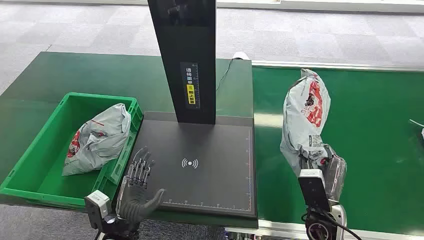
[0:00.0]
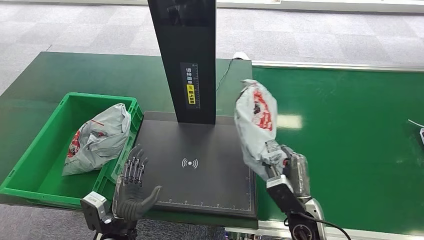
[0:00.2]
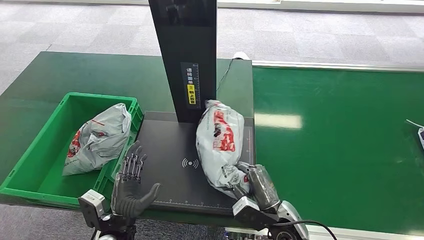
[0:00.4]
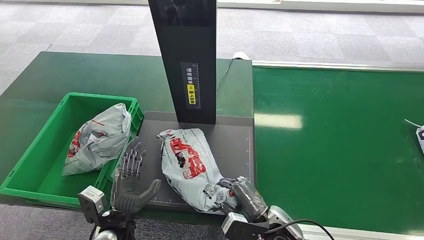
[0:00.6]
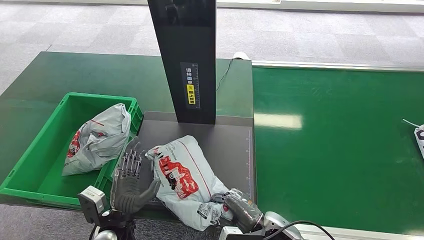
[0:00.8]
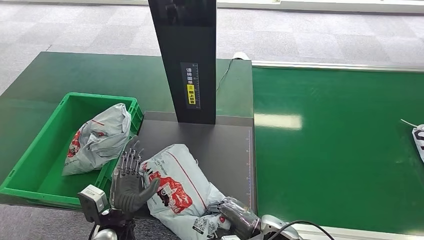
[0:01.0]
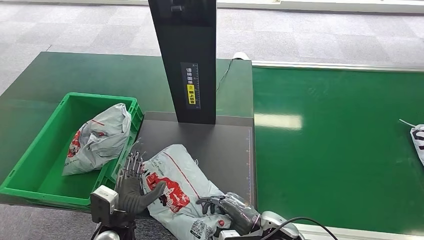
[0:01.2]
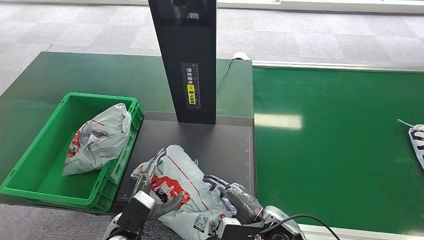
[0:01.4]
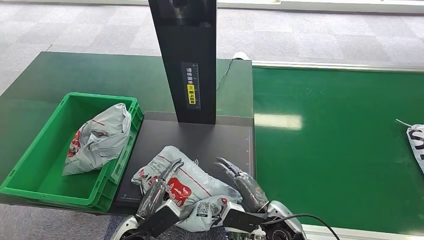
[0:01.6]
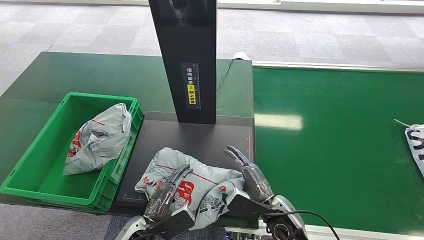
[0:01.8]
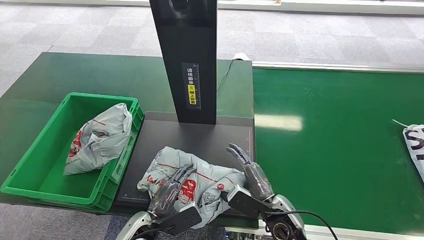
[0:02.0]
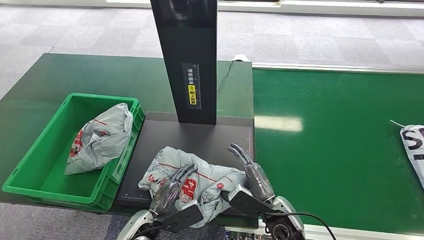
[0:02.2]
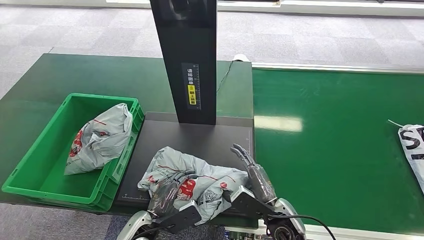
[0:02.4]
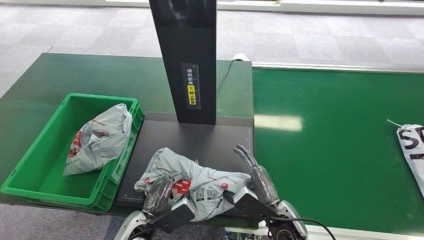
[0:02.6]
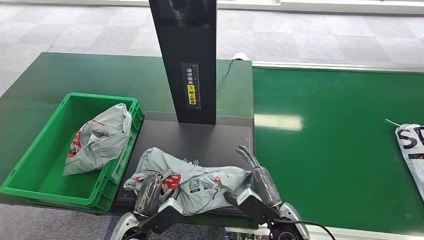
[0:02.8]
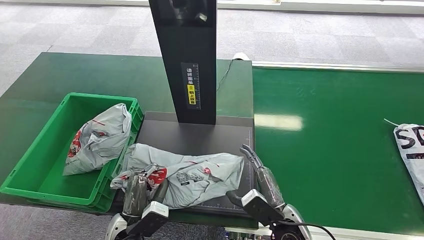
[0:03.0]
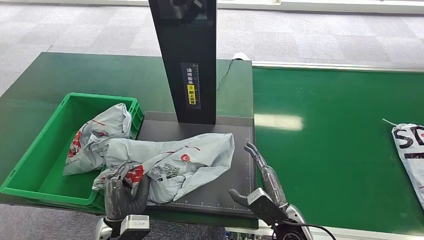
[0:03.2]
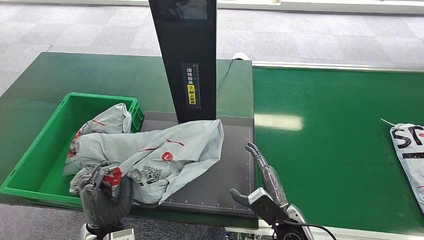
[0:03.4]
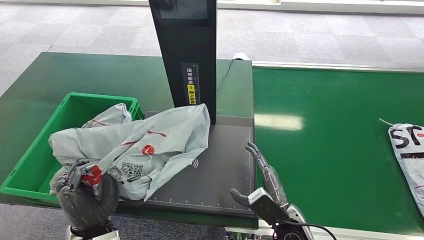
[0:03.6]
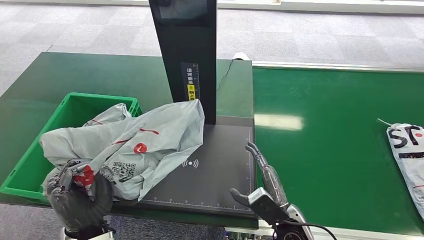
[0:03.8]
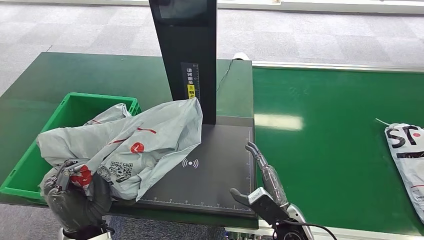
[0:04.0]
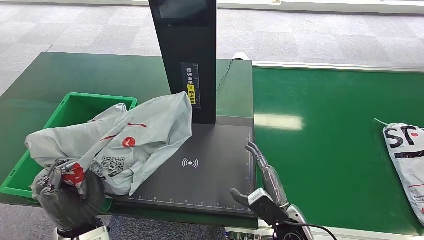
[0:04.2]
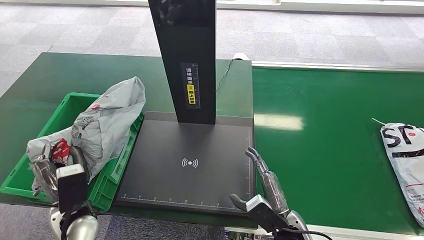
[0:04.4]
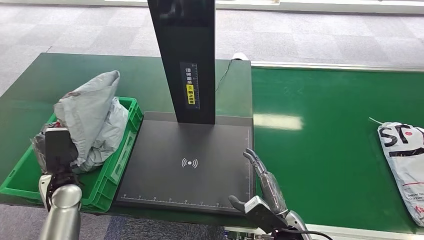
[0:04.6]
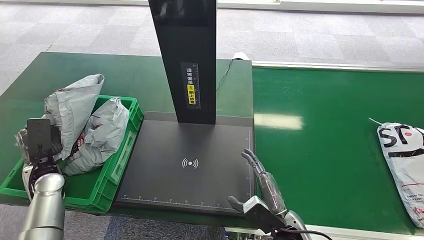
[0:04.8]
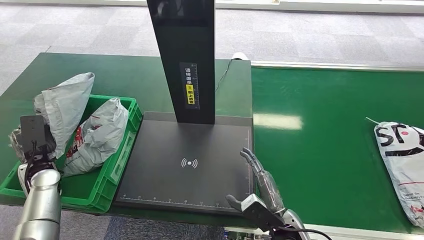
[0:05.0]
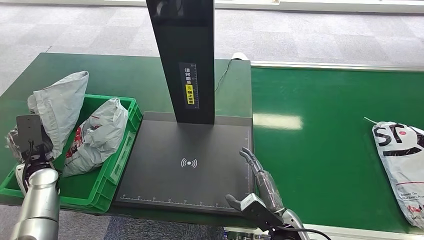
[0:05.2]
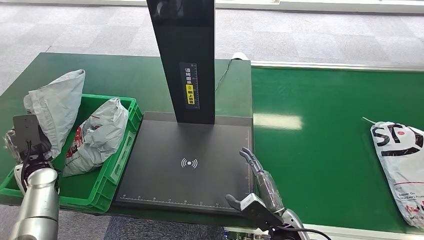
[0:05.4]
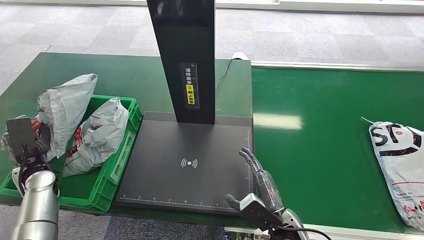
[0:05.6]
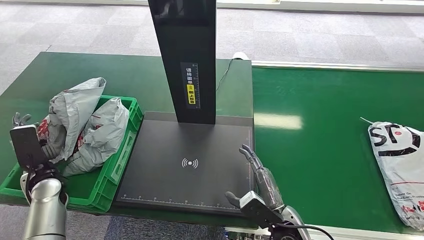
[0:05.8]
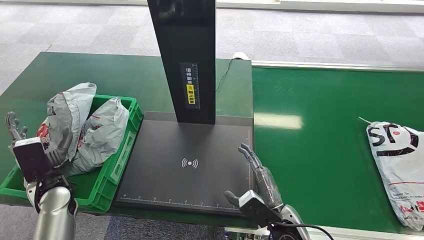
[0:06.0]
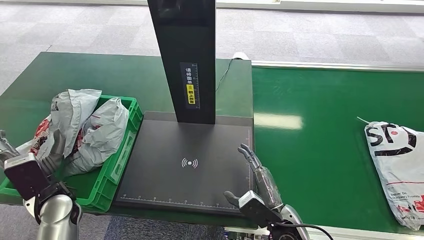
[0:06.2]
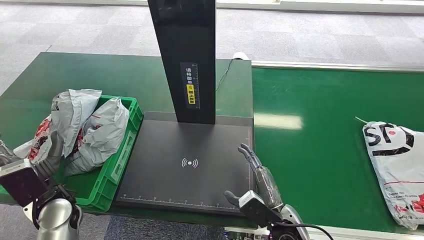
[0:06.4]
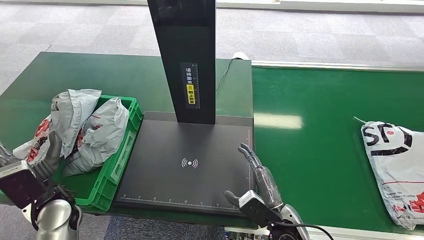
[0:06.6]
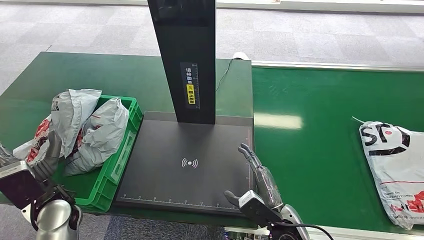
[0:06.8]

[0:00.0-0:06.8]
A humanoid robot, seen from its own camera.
Task of the whole recording: Weigh the package on the weighing device and place it in the left basket.
Step, 0:00.0 to 0:00.2: Pick up the package from the conveyor belt.
0:02.8 to 0:04.0: The left hand shifts some 10 cm upward.
0:05.4 to 0:06.8: The left hand heads to the right and backward, covering some 15 cm.

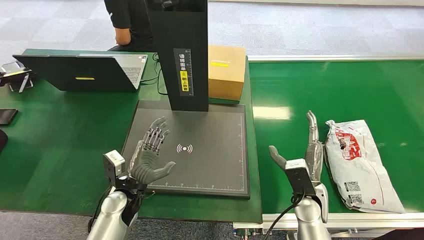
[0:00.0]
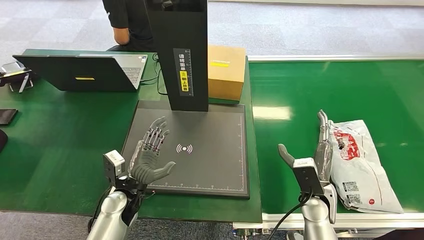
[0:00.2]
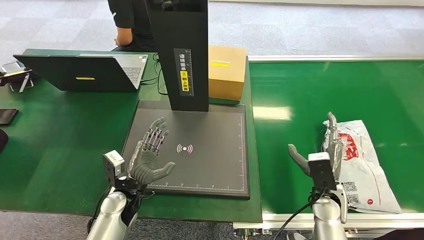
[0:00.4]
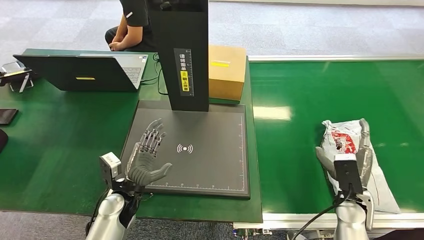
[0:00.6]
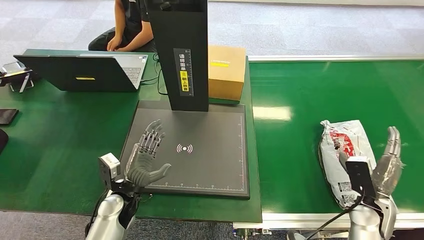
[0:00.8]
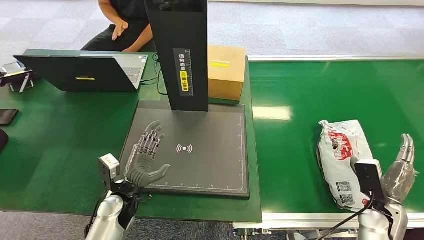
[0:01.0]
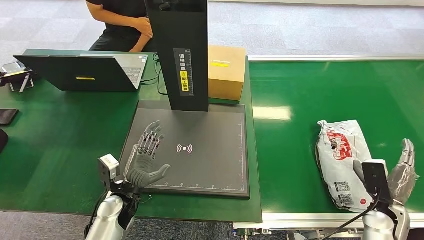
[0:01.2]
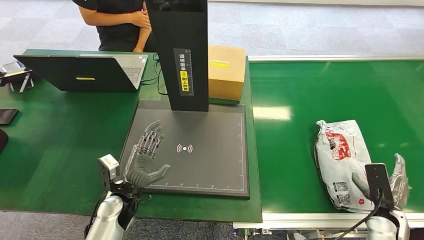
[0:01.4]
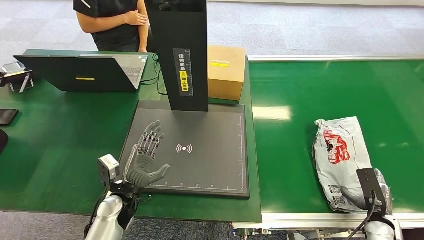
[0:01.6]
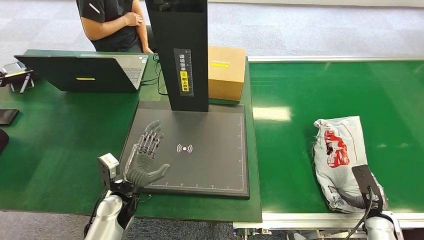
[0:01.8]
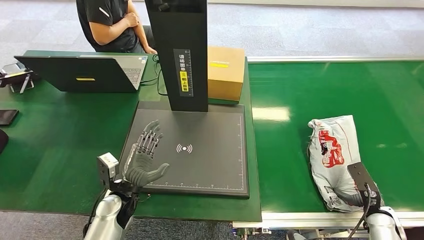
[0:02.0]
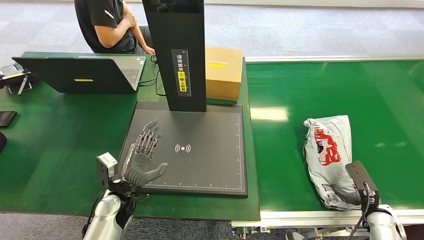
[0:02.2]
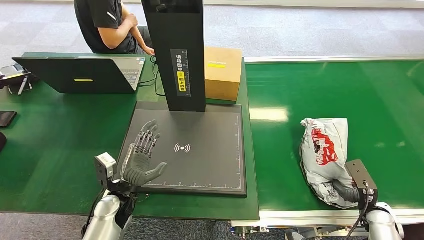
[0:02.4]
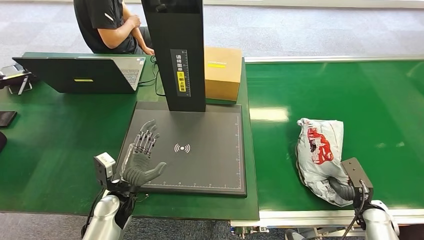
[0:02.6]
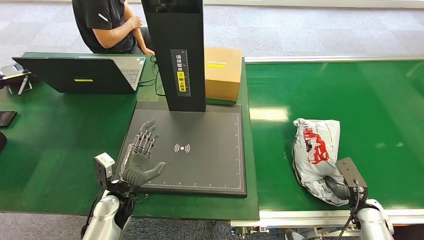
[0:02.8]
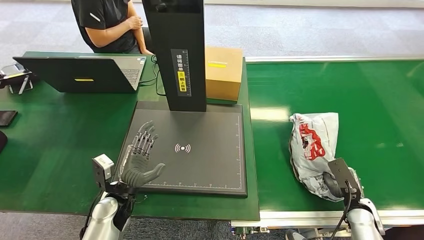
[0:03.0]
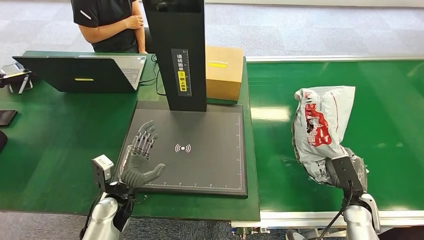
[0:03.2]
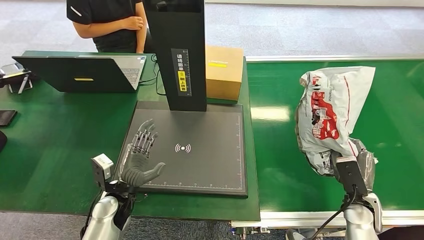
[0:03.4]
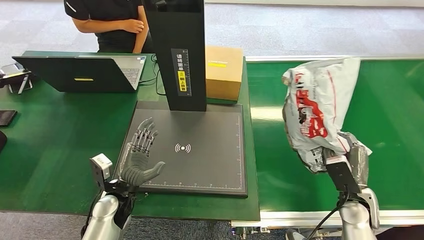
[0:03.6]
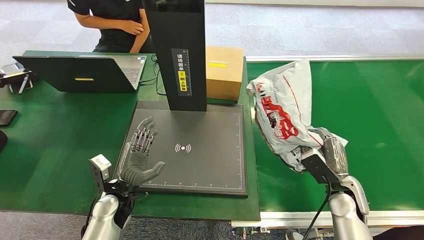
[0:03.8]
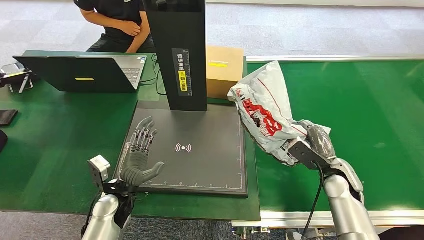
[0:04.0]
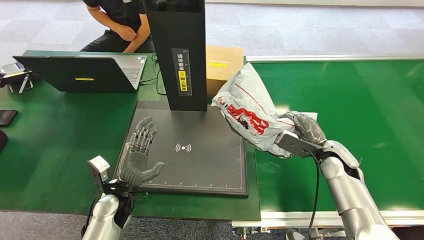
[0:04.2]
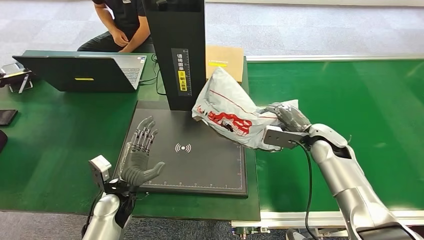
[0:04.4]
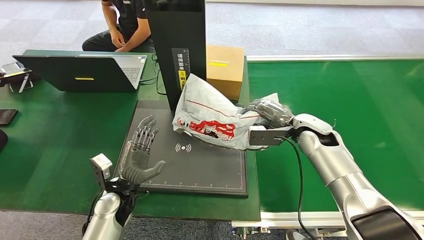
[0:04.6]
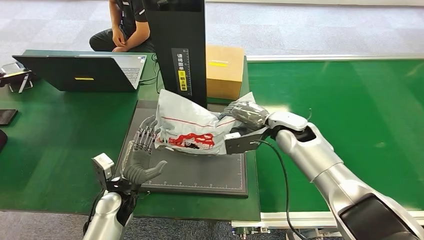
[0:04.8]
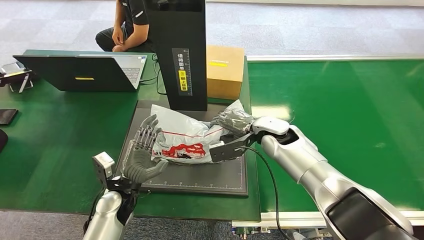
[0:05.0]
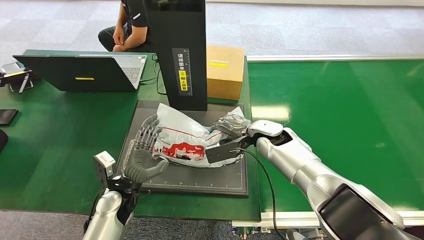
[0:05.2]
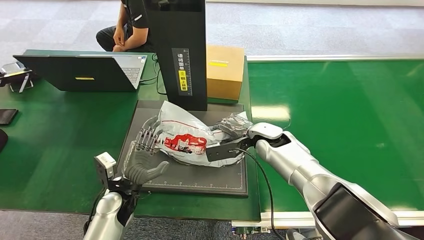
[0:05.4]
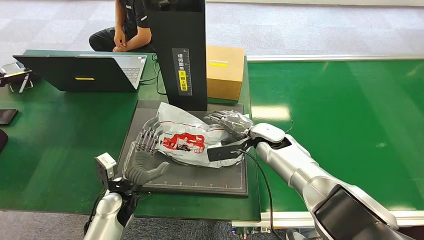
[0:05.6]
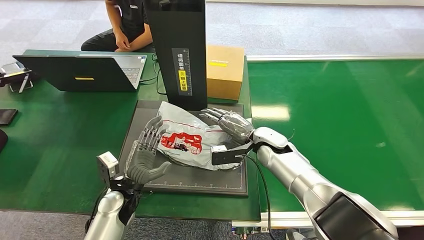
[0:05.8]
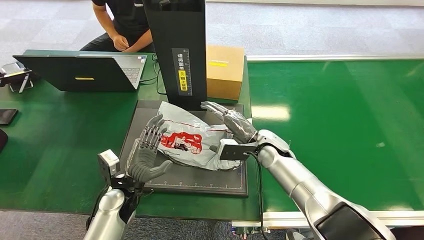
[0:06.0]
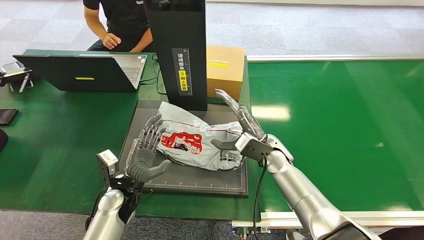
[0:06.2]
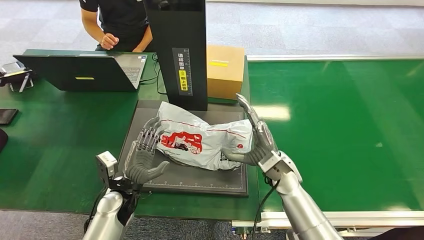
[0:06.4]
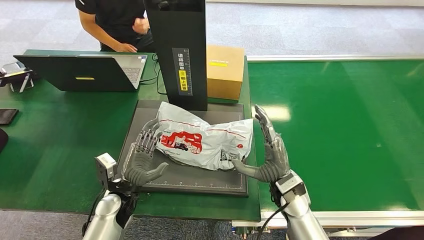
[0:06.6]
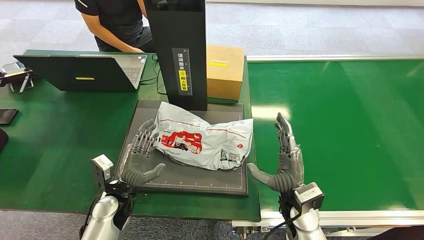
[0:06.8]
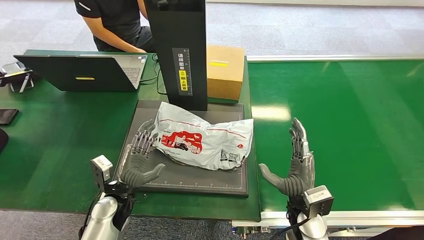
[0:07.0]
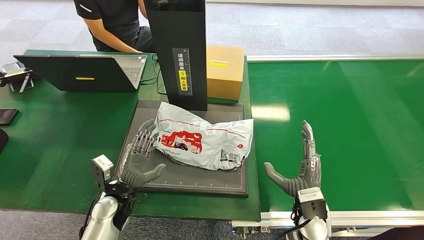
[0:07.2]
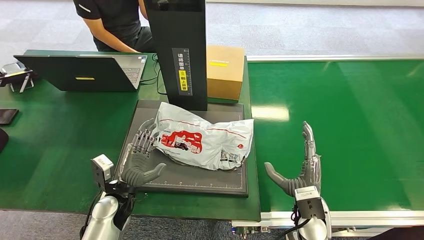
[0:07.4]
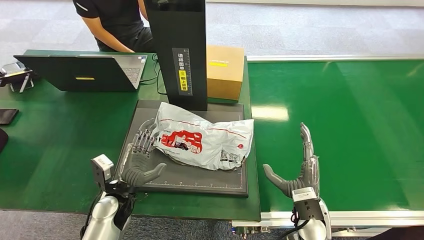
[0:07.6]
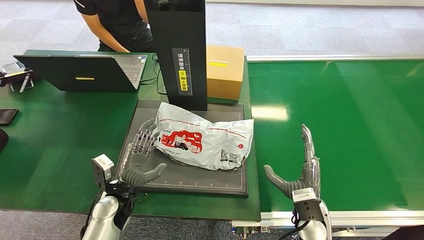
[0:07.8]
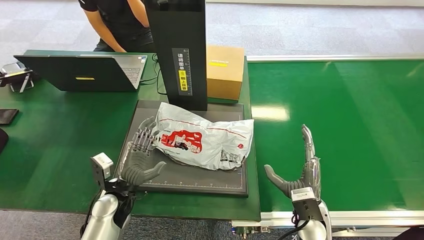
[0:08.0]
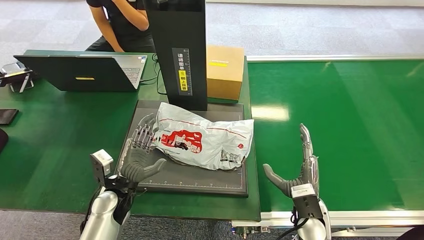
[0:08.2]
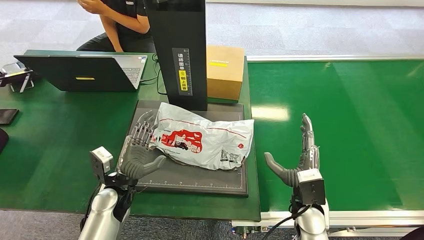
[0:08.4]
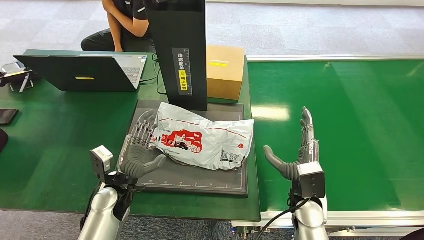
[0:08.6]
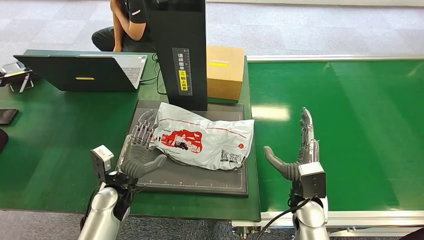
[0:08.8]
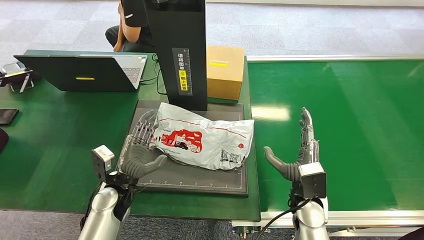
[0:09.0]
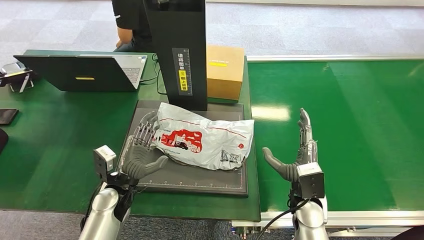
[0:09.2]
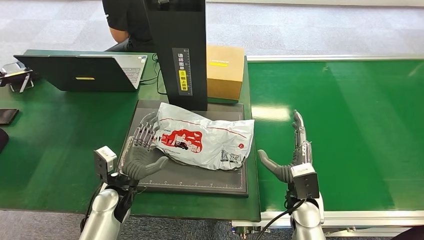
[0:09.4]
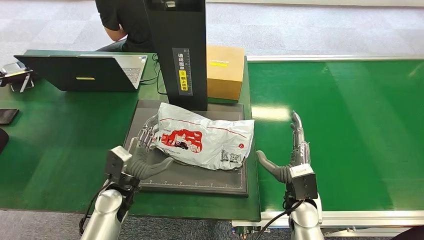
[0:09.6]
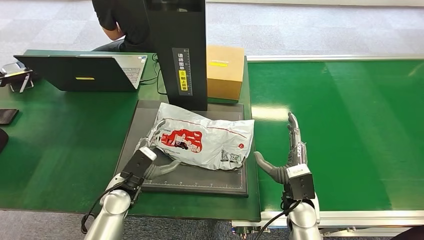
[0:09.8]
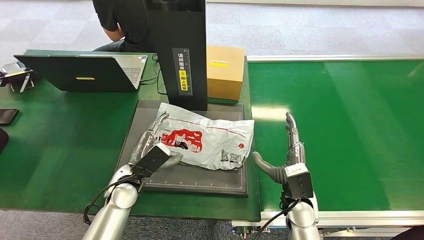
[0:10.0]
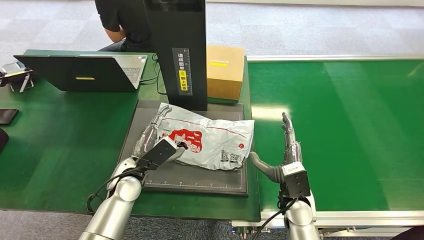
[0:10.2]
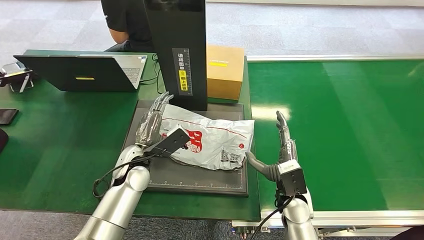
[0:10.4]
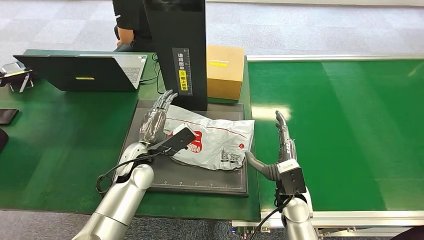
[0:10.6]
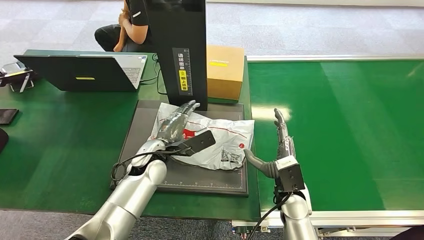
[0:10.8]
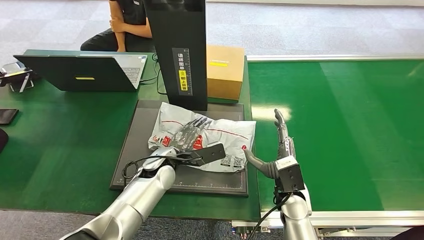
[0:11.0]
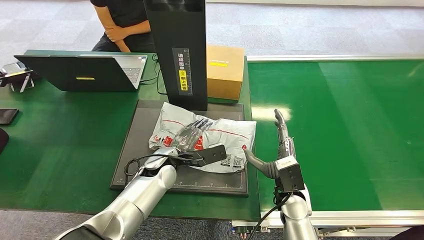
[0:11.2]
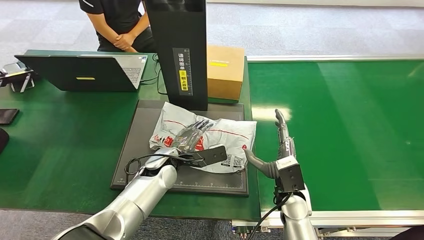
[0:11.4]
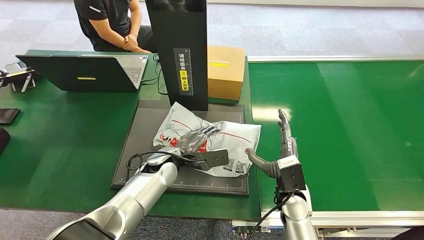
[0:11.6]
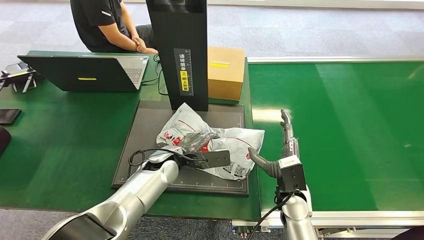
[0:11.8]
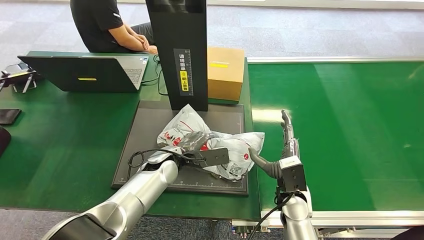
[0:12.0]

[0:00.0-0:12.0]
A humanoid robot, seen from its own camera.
Task of the whole recording: Weigh the package on the weighing device and place it in the left basket.
Step, 0:00.0 to 0:03.8: Pick up the package from the conveyor belt.
Step, 0:04.0 to 0:06.4: Place the package onto the inbound machine.
0:06.0 to 0:07.6: The right hand is displaced backward and to the right by about 20 cm.
0:07.6 to 0:09.0: The hands stay close to where they were, moving slightly.
0:09.0 to 0:10.4: The left hand moves forward, about 5 cm.
